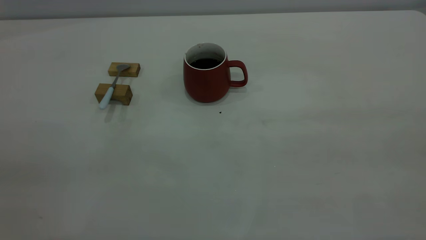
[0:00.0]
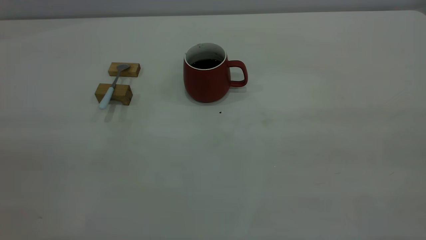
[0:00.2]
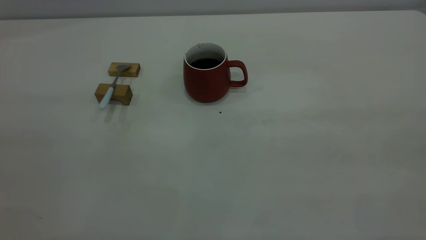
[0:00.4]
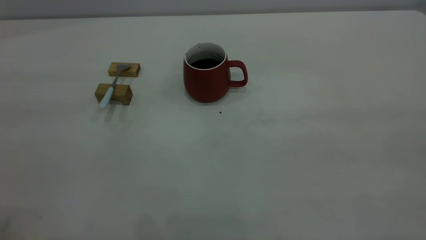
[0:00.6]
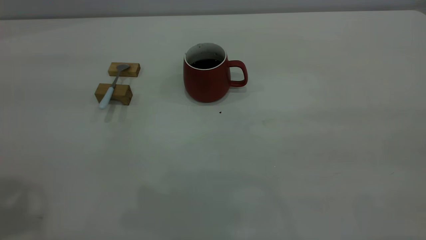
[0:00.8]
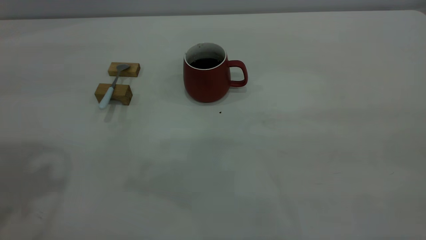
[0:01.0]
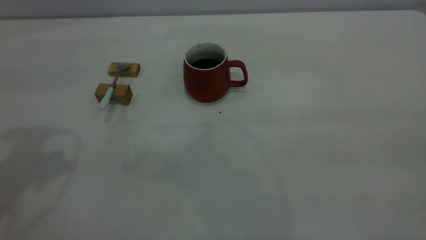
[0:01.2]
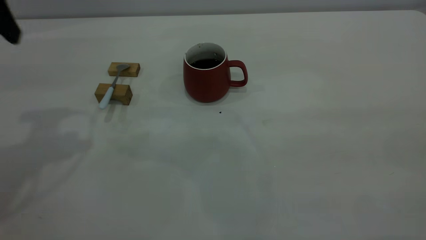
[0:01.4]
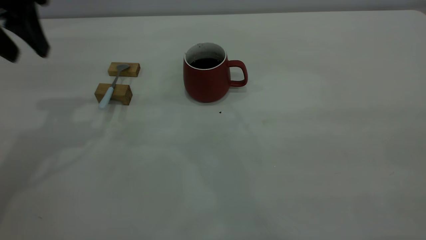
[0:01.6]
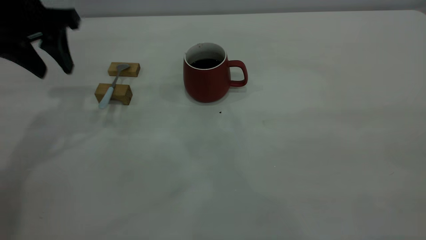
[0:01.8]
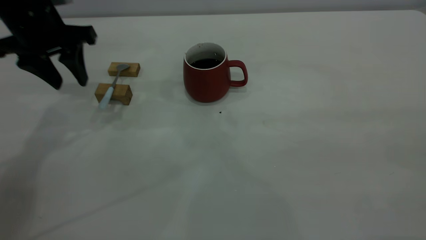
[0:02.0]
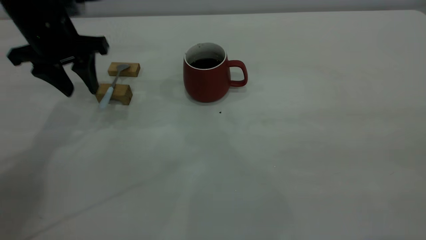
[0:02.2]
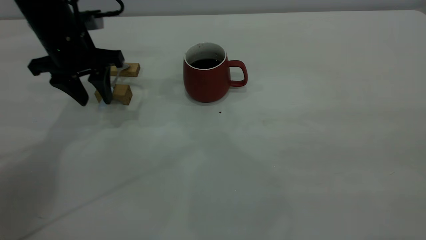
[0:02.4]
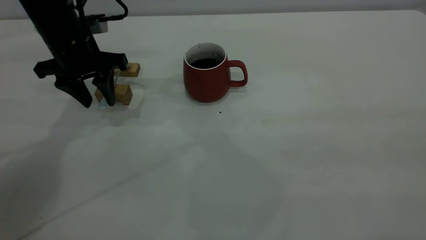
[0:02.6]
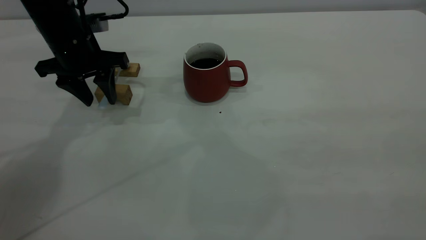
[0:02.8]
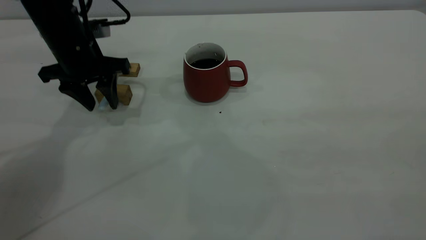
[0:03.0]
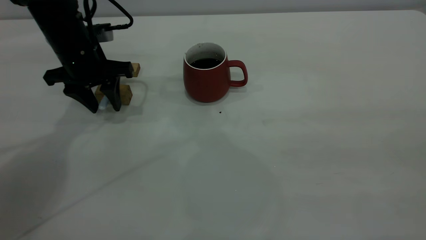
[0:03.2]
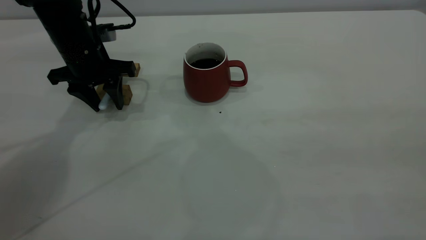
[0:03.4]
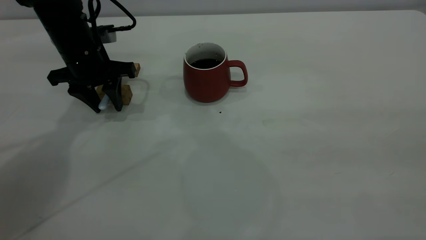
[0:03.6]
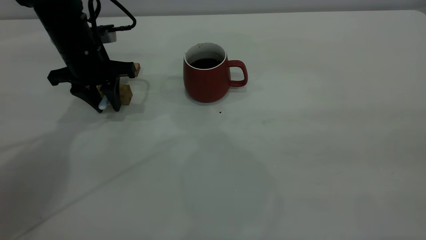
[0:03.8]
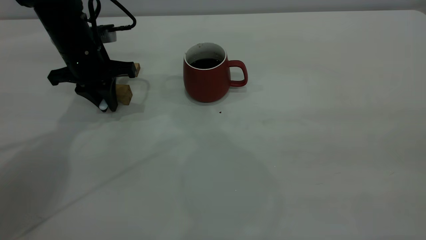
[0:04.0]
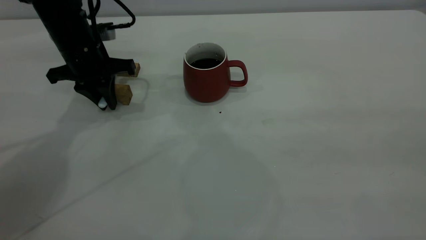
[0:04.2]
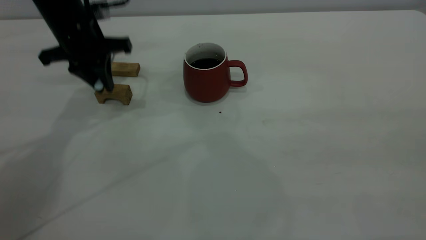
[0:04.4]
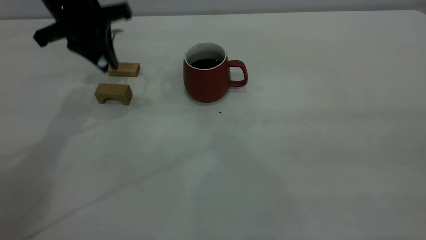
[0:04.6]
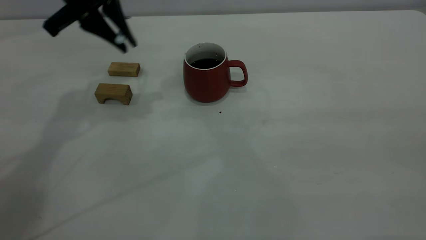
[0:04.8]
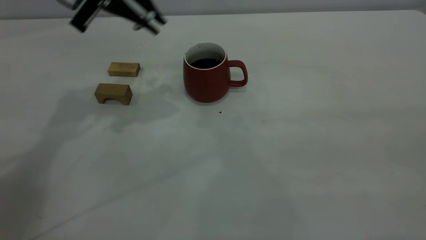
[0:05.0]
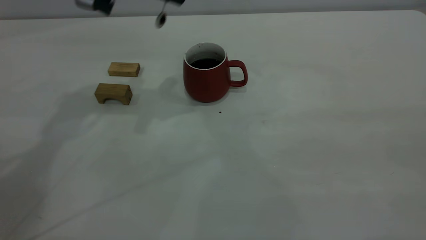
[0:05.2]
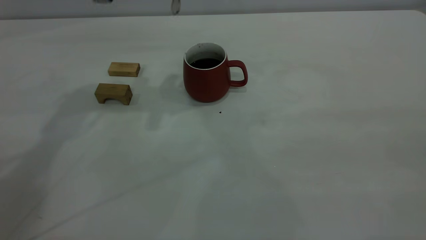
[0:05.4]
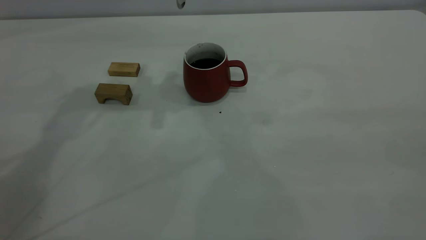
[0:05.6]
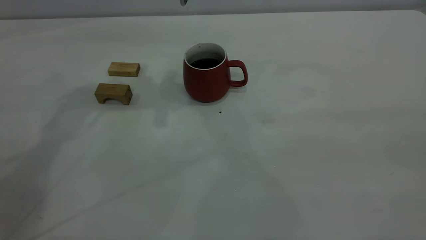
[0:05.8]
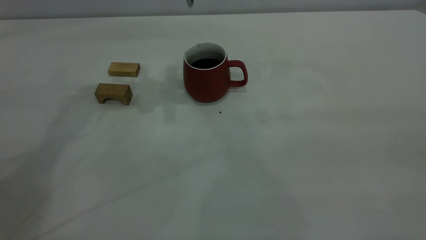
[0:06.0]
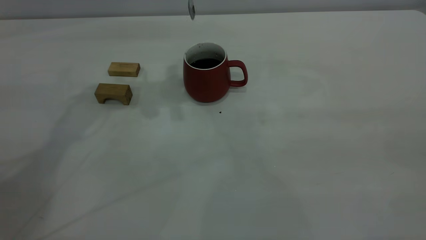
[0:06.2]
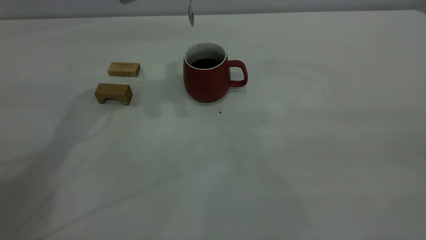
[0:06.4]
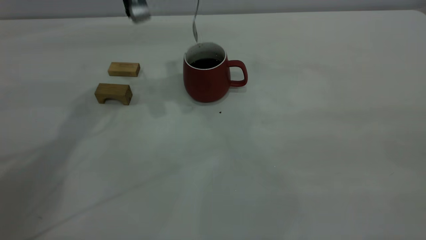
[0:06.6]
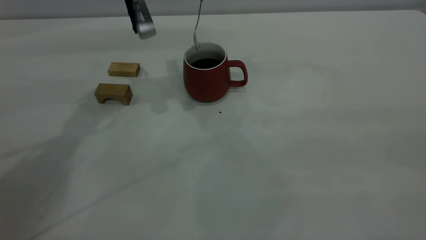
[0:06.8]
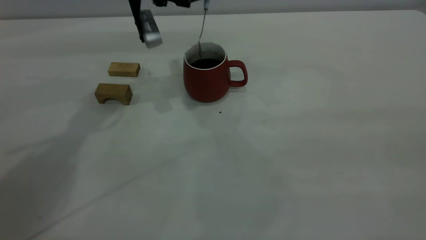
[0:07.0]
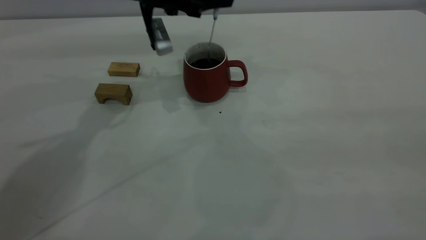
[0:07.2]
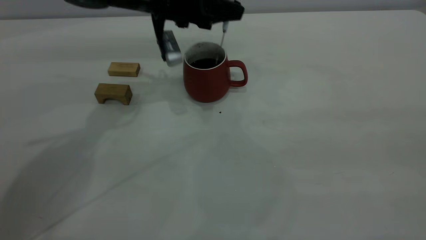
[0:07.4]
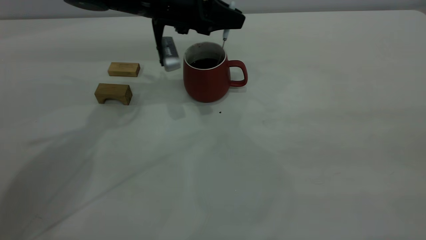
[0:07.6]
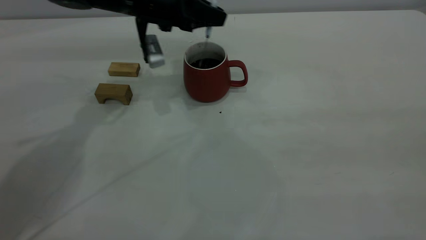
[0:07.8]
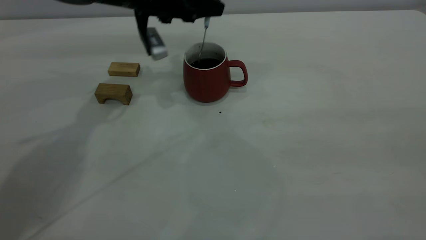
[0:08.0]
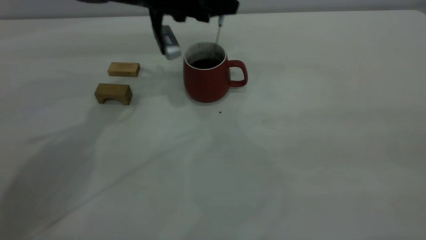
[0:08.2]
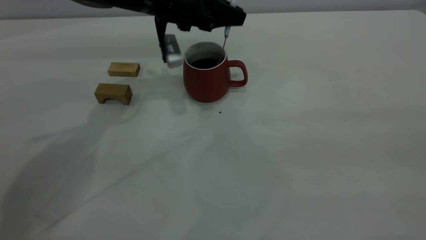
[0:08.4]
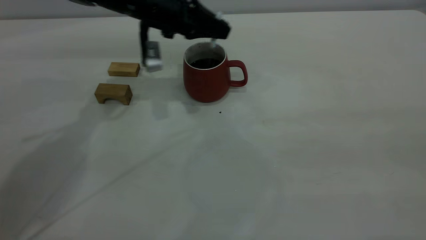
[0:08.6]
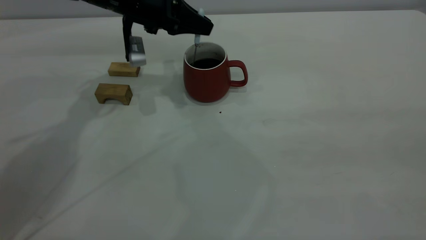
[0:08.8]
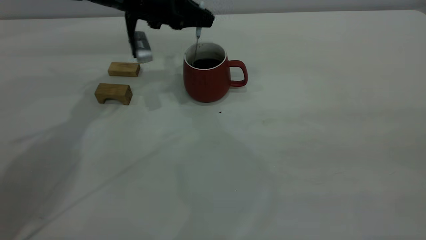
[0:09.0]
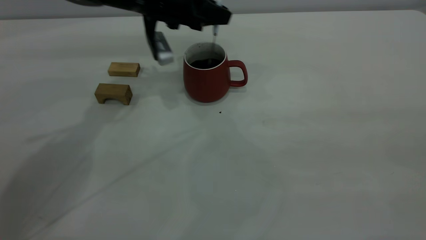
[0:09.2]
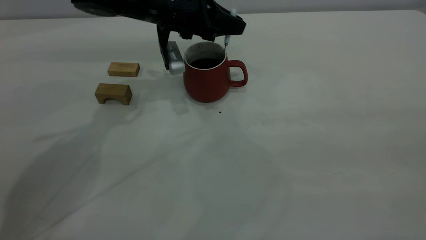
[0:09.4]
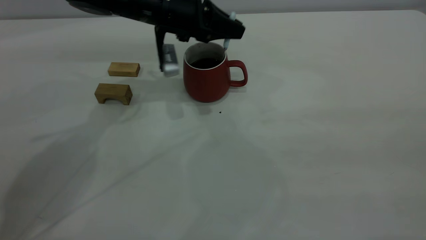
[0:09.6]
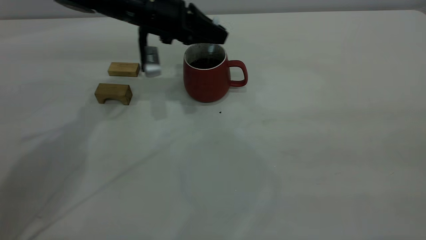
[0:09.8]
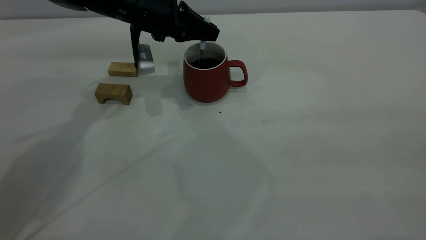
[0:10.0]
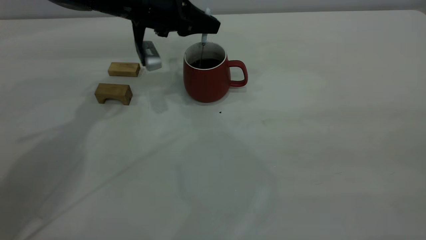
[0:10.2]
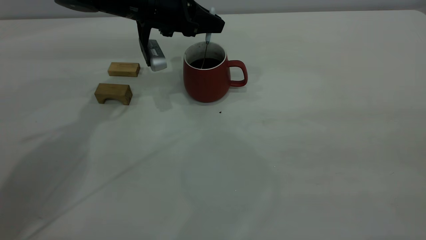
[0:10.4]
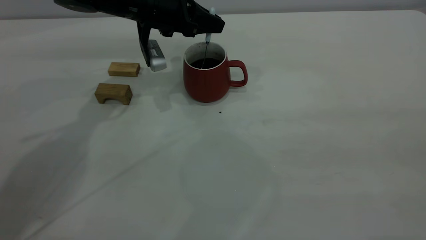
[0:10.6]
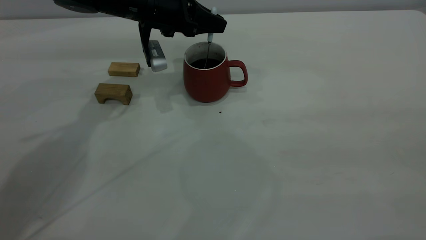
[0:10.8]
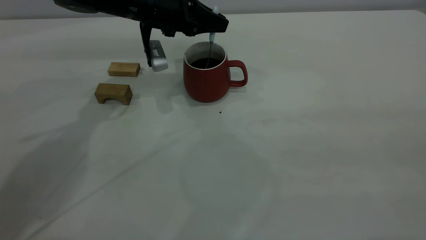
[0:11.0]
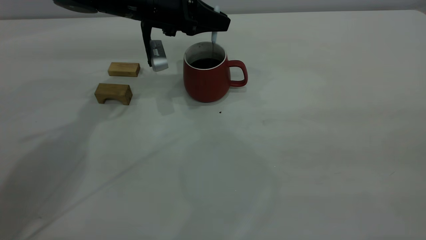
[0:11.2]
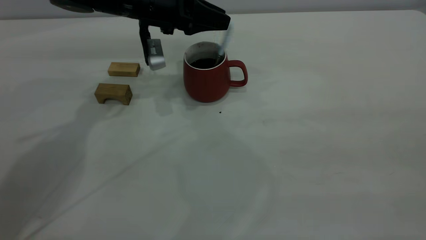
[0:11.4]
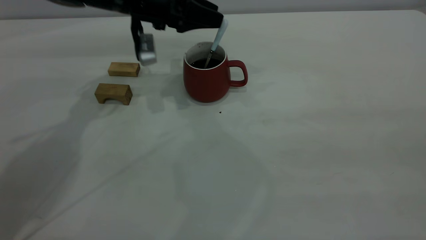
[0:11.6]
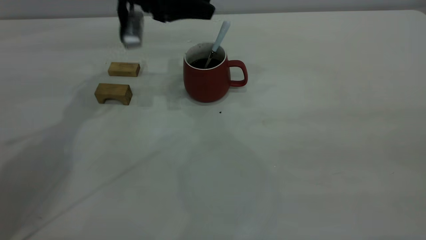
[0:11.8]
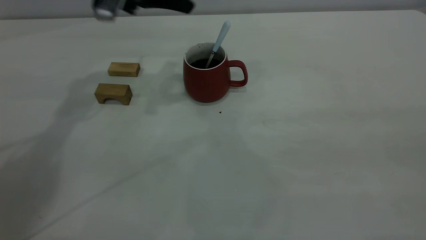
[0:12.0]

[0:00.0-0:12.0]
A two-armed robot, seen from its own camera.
Step, 0:00.0 to 0:04.4: Pick up the spoon.
Step, 0:04.8 to 0:11.8: Stir the coffee in the cup.
0:00.0 to 0:01.6: The left gripper is displaced forward by roughly 35 cm, and opens its fingers.
0:01.6 to 0:03.0: The left gripper is displaced downward and forward by roughly 15 cm.
0:03.0 to 0:04.4: The left gripper closes.
0:04.4 to 0:06.0: The left gripper heads upward and to the right, covering some 15 cm.
0:06.0 to 0:07.6: The left gripper shifts about 15 cm downward.
0:07.6 to 0:10.4: The grippers stay close to where they were, moving slightly.
0:10.4 to 0:12.0: The left gripper moves upward, some 10 cm, and opens its fingers.

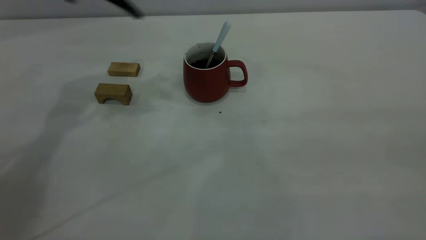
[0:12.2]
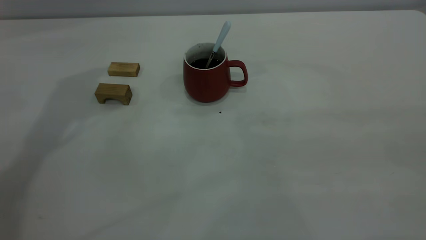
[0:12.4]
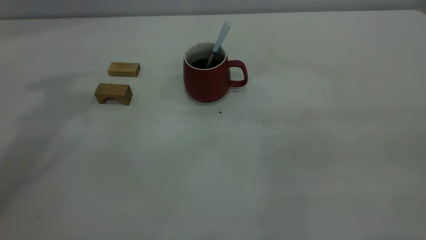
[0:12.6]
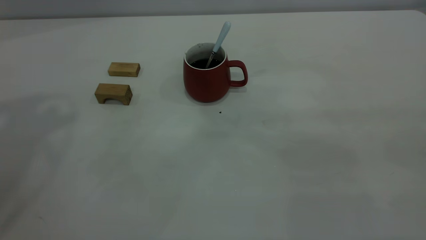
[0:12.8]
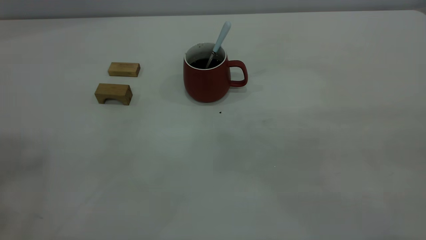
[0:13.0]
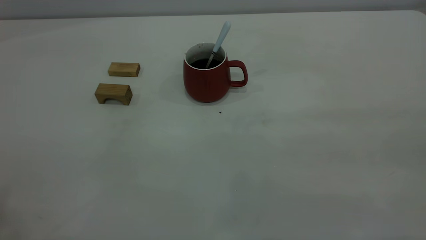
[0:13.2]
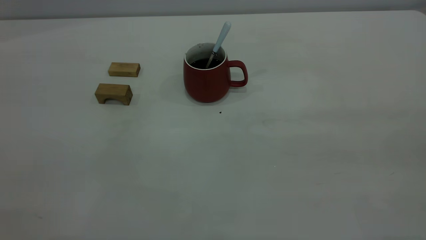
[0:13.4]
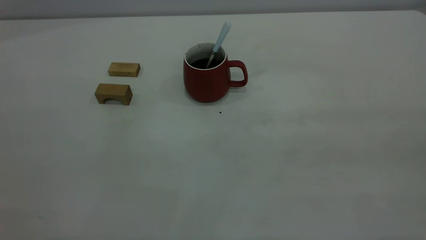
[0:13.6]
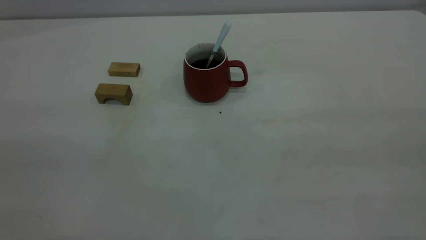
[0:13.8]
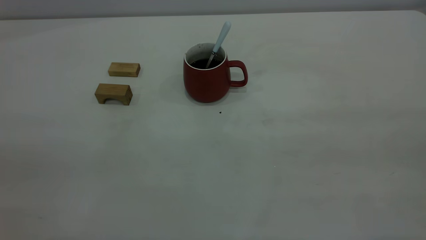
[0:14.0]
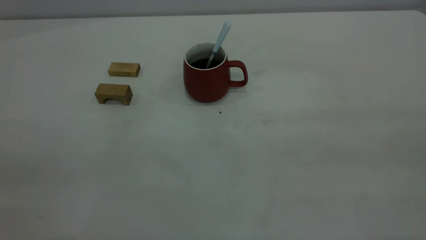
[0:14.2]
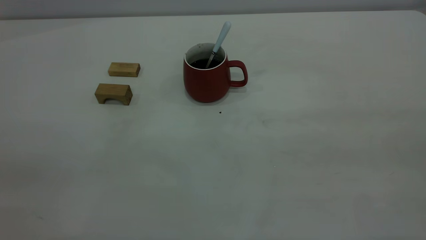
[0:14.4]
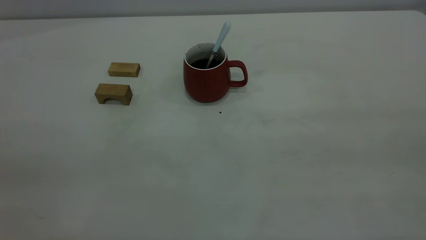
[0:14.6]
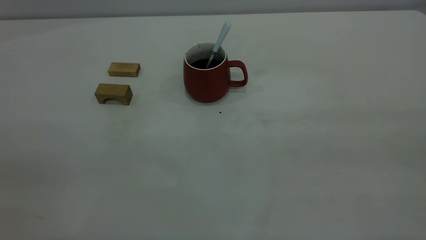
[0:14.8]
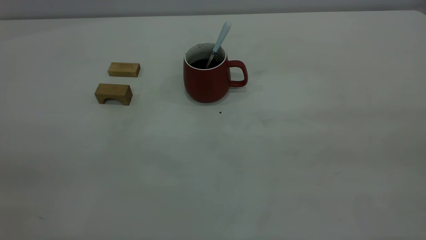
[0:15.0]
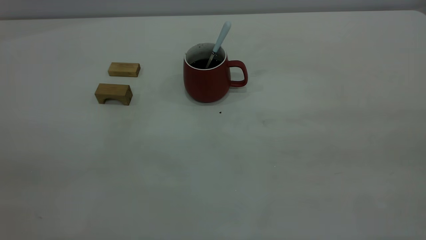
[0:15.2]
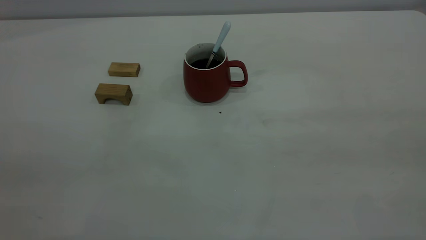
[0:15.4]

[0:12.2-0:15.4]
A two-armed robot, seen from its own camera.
0:12.2 to 0:13.8: The left gripper shifts approximately 40 cm backward.
